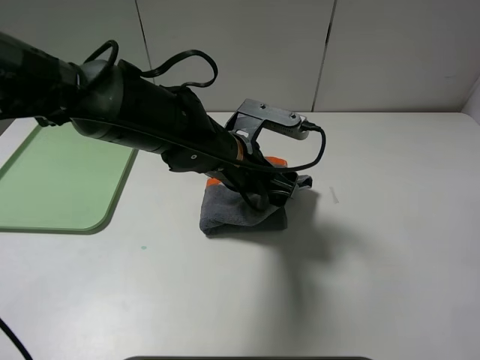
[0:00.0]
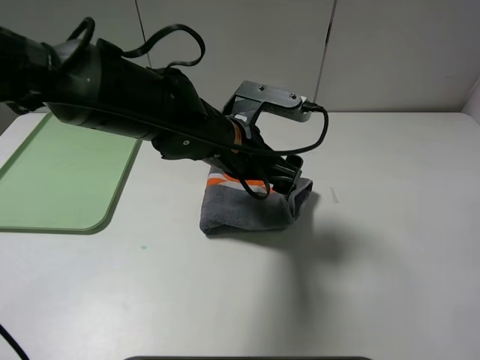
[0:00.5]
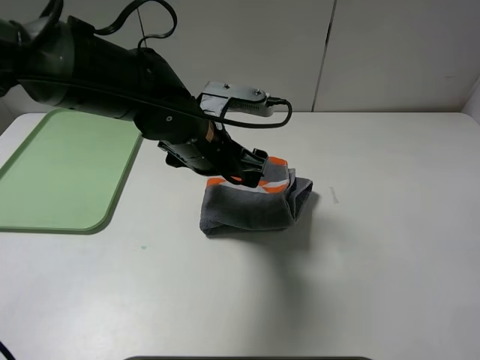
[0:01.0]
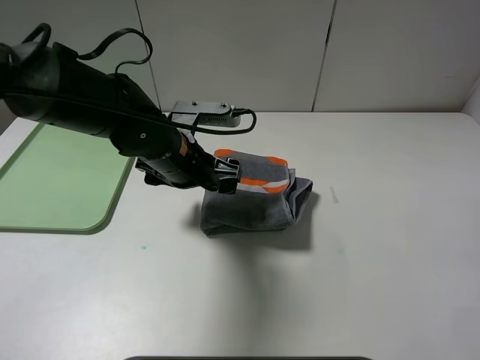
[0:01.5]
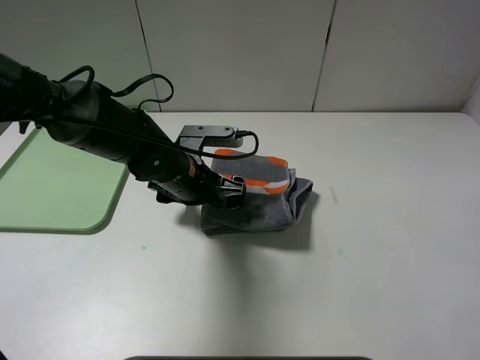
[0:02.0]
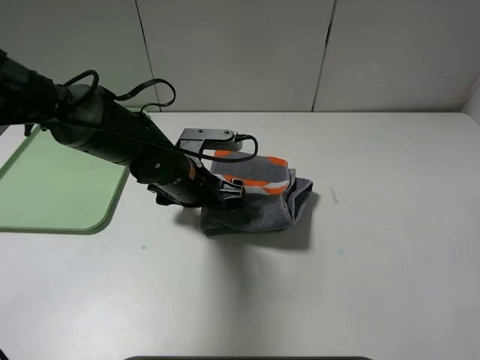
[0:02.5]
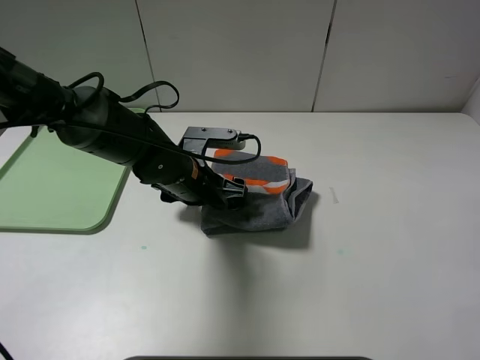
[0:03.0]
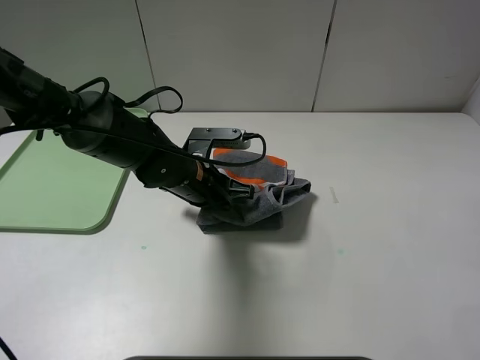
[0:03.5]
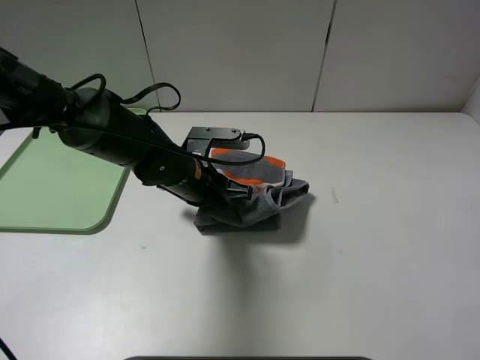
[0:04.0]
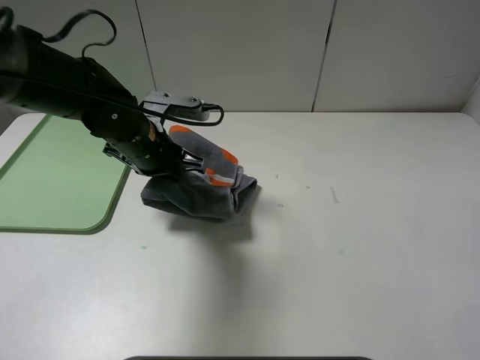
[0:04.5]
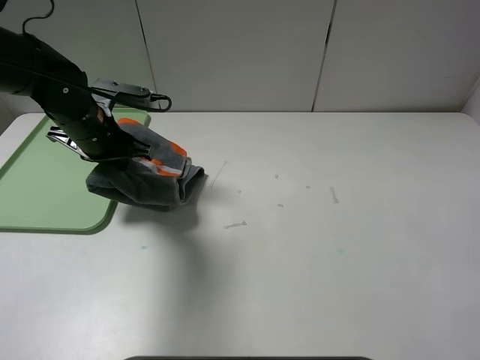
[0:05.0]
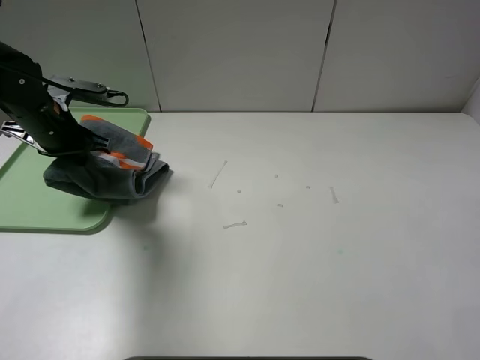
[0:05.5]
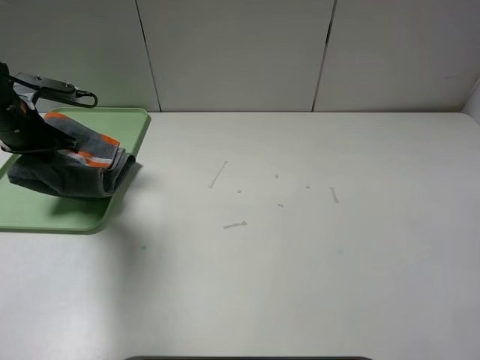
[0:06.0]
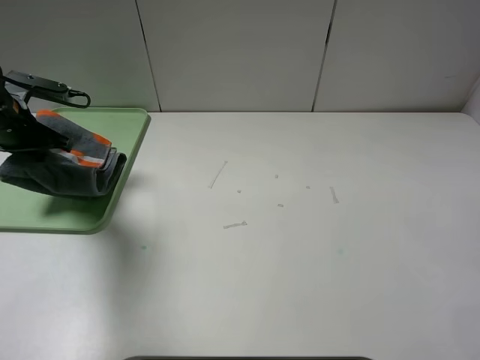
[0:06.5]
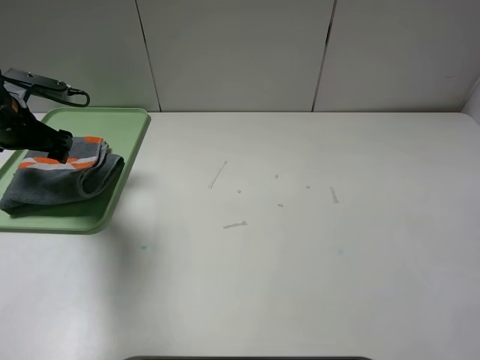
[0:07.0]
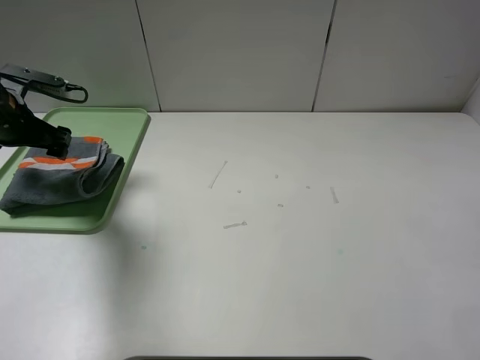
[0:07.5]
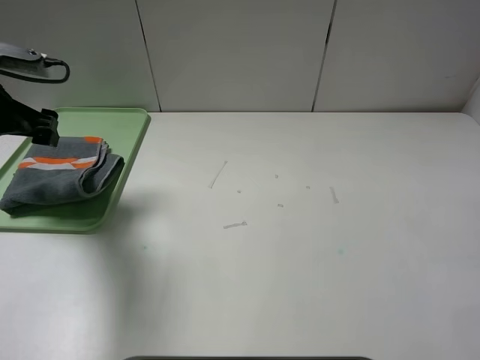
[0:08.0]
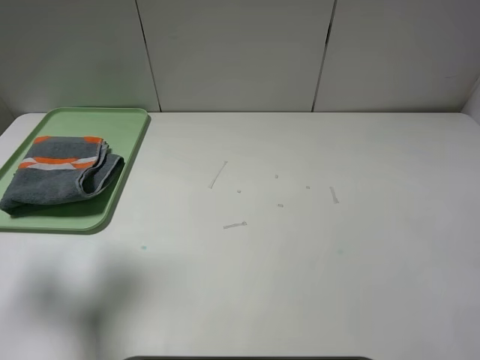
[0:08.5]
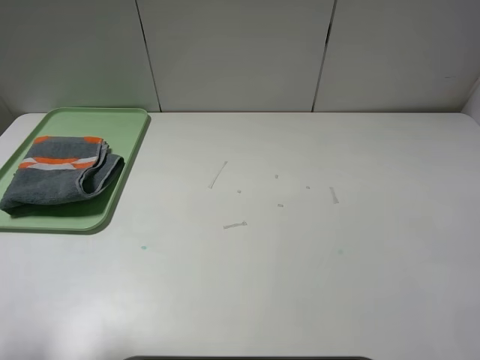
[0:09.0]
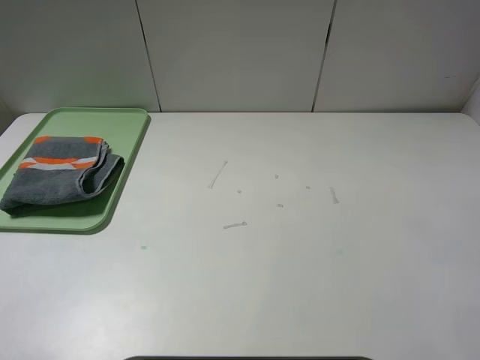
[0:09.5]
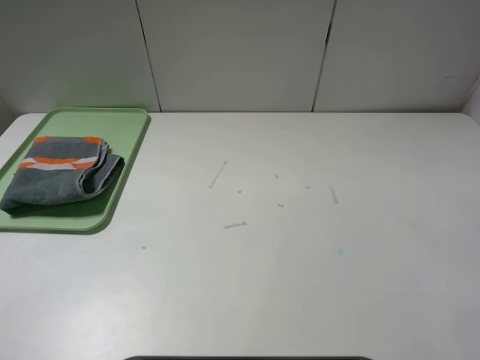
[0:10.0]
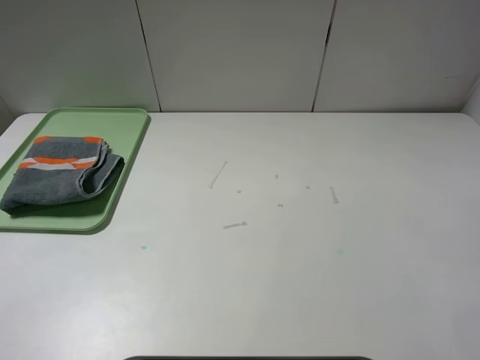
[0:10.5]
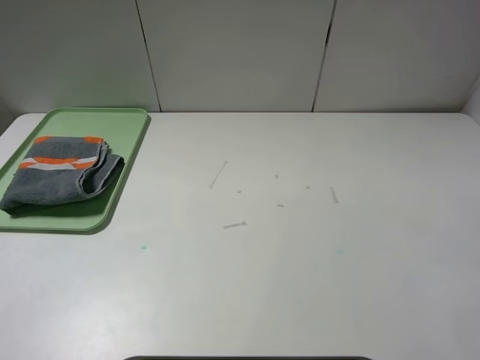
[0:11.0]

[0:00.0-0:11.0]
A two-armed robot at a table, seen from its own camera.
Step, 0:01.0 to 0:07.0: Place the folded grey towel on the tray with the left gripper.
0:00.0 to 0:02.0: The left gripper is displaced to the left by roughly 5 cm.
0:02.0 to 0:03.5: The left gripper closes.
0:03.5 to 0:05.5: The left gripper moves to the left, about 20 cm.
0:05.5 to 0:07.5: The left gripper is displaced to the left by about 5 cm, and opens.
0:07.5 to 0:09.0: The left gripper goes roughly 30 cm backward and upward.
0:09.0 to 0:11.0: The left gripper goes approximately 10 cm backward.
